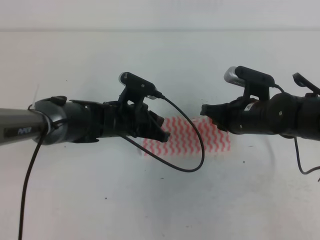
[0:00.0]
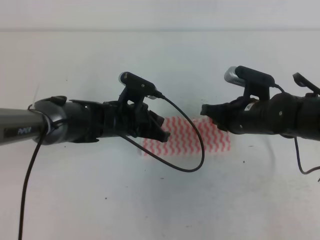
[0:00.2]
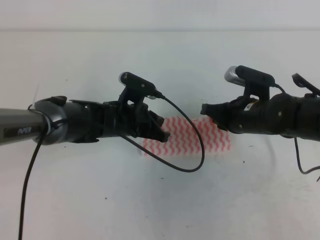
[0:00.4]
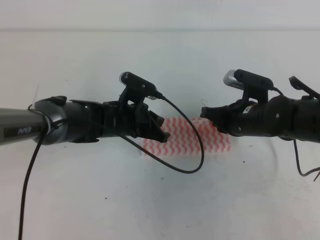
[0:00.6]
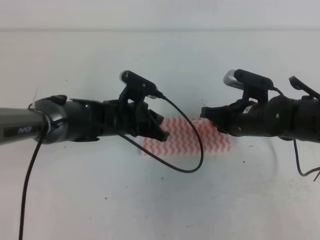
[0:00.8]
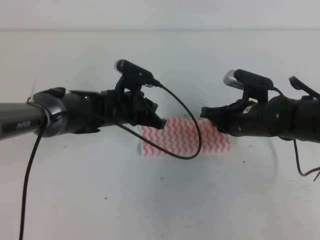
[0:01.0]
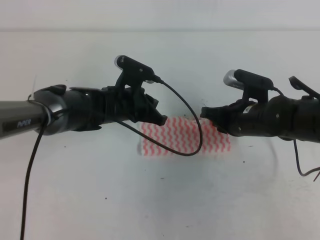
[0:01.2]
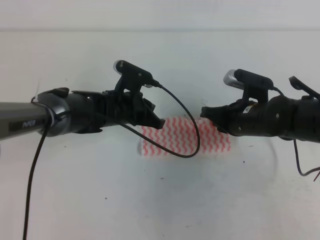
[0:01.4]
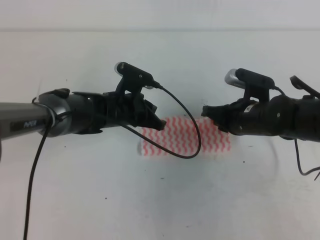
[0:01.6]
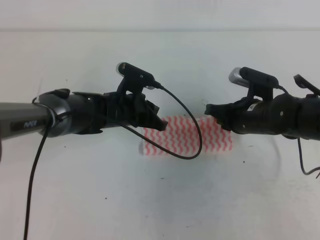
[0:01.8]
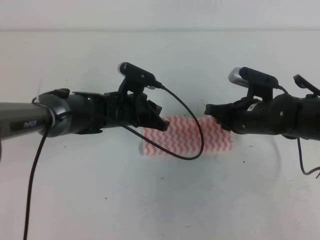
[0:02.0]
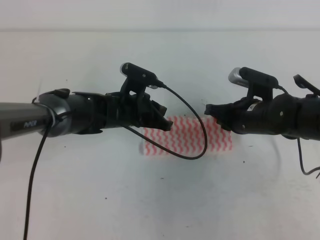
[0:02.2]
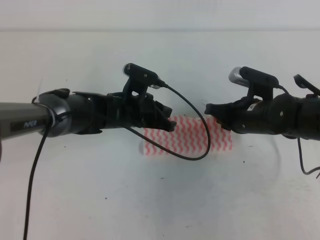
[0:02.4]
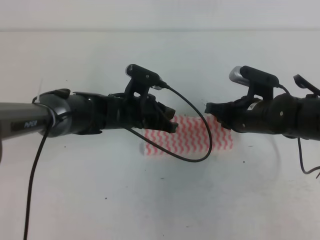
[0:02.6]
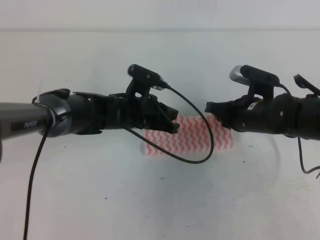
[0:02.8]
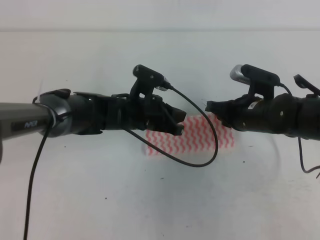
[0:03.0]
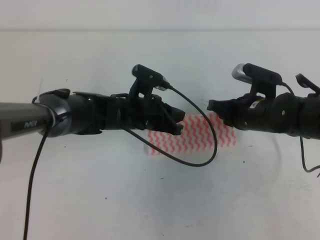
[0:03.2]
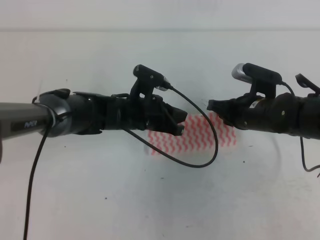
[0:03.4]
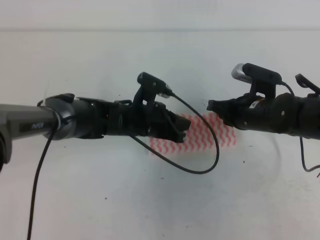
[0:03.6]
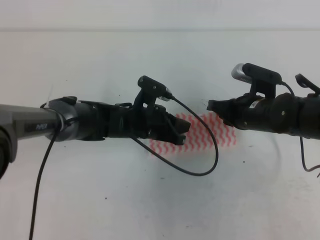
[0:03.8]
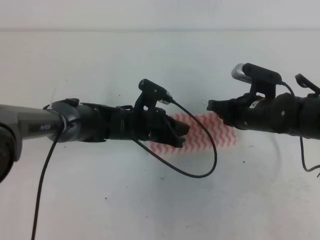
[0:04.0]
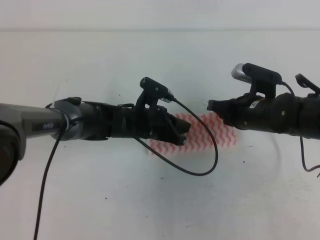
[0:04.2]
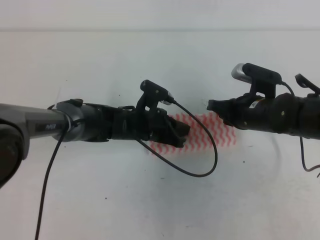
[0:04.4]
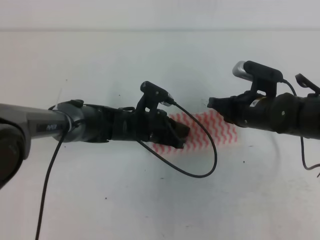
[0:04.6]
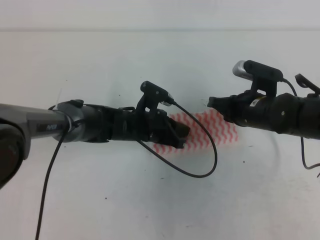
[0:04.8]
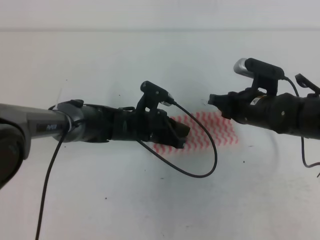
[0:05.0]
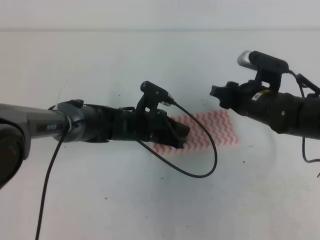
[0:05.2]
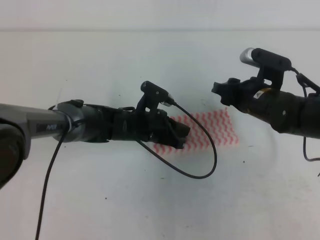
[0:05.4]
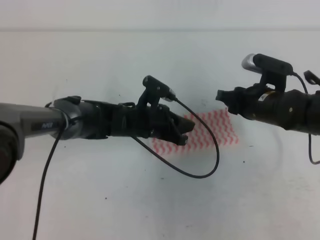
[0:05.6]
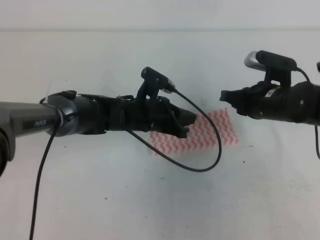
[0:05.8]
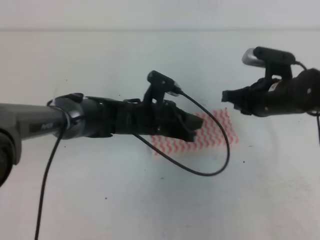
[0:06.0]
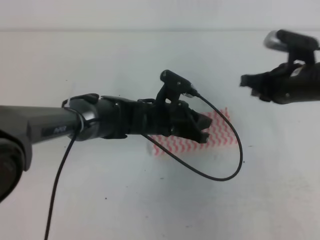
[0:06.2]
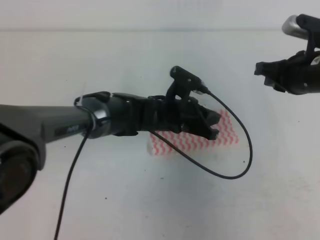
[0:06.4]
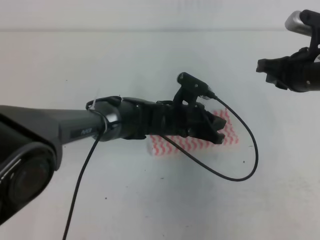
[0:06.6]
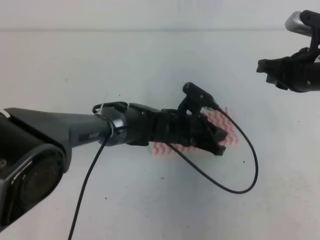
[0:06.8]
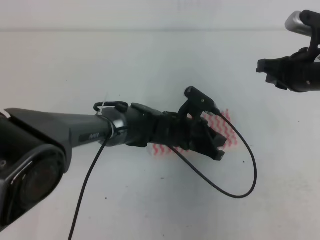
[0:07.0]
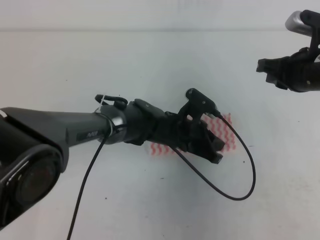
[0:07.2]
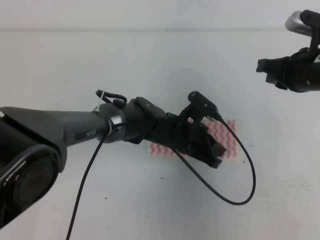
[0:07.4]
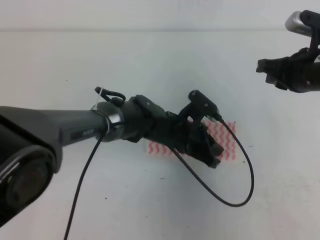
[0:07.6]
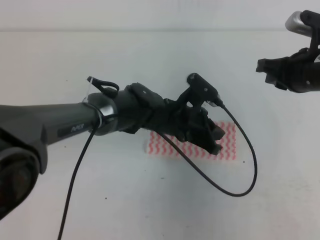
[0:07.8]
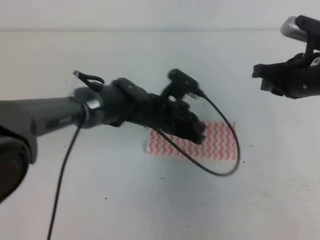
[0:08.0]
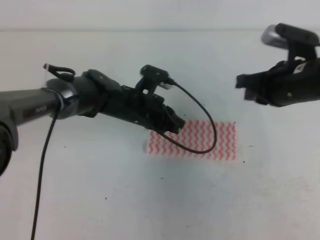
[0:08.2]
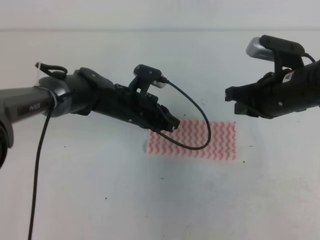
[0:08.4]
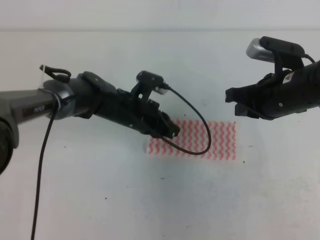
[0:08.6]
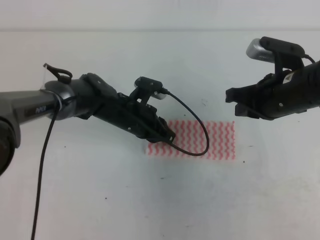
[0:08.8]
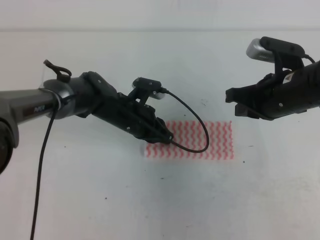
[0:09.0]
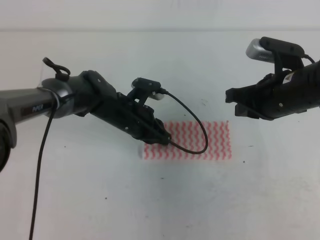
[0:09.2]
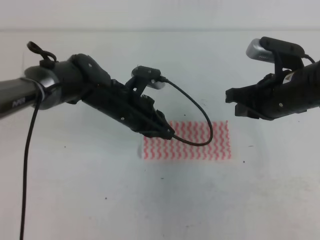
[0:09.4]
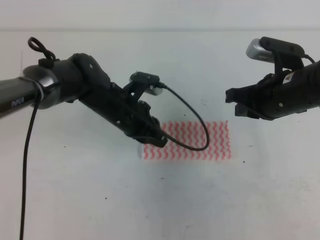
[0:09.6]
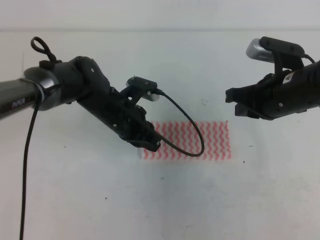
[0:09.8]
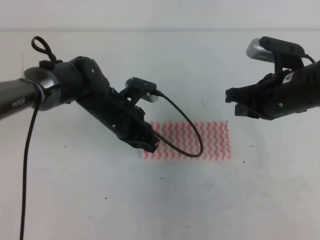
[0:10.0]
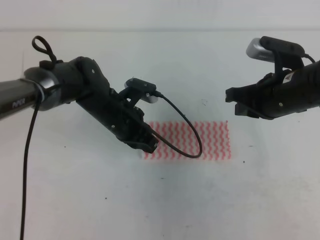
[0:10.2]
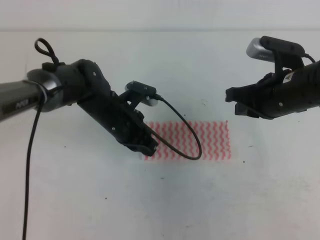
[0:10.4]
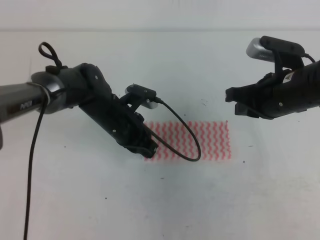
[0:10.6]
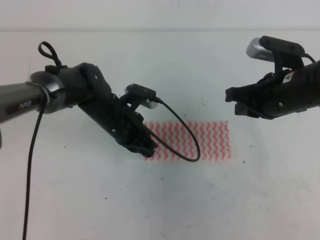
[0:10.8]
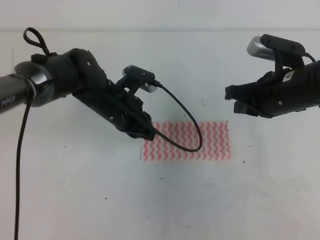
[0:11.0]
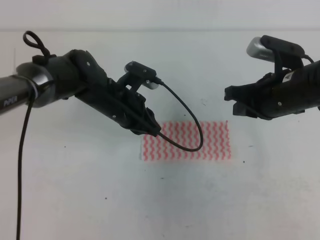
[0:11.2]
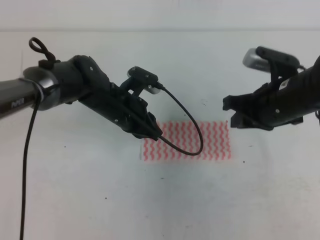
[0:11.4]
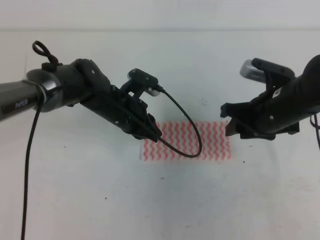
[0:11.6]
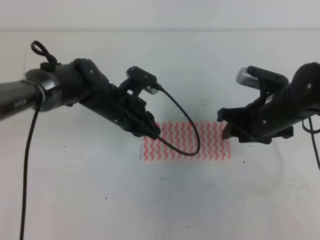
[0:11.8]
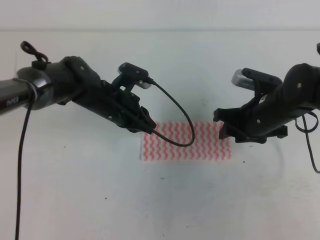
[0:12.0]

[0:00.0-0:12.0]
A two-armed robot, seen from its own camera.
0:00.0 to 0:04.4: The grippers make only small movements.
0:04.4 to 0:06.0: The right gripper opens, then closes once more.
0:06.0 to 0:07.6: The right gripper heads upward, covering approximately 5 cm. The left gripper shifts about 5 cm to the right.
0:07.6 to 0:09.0: The left gripper heads to the left, covering approximately 10 cm, while the right gripper ends up about 5 cm from where it was.
0:09.0 to 0:10.4: The grippers move only a little.
0:10.4 to 0:12.0: The right gripper moves downward, some 5 cm, and opens its fingers.

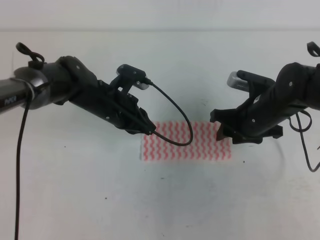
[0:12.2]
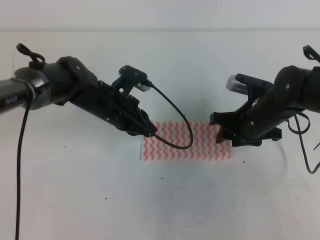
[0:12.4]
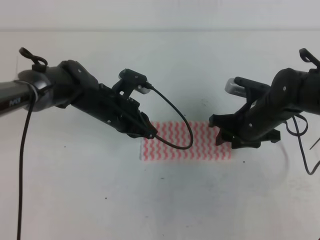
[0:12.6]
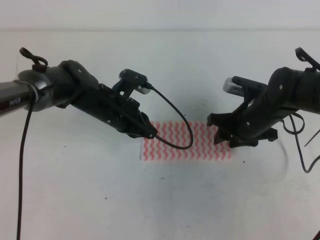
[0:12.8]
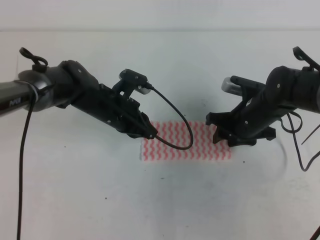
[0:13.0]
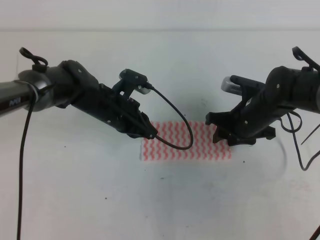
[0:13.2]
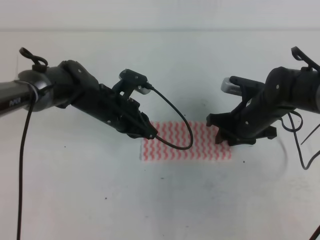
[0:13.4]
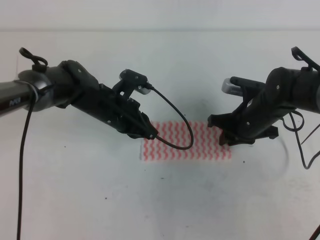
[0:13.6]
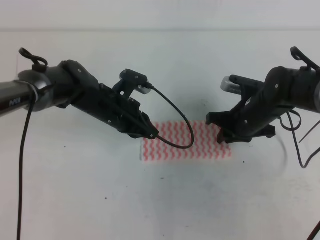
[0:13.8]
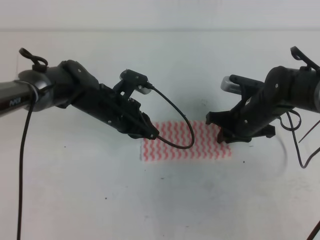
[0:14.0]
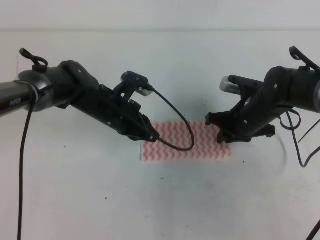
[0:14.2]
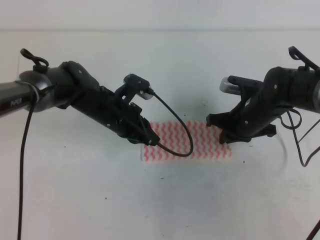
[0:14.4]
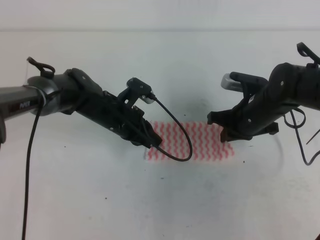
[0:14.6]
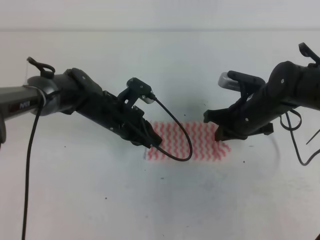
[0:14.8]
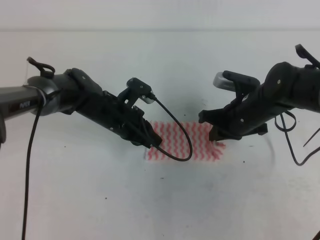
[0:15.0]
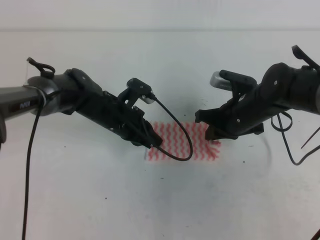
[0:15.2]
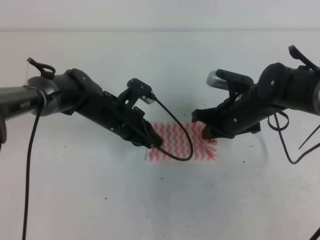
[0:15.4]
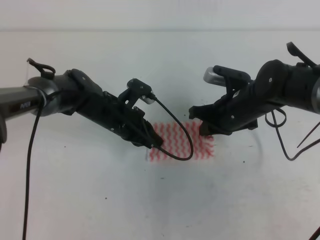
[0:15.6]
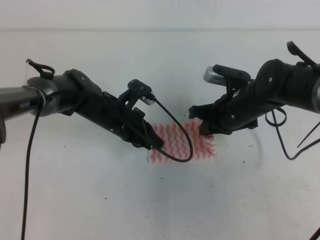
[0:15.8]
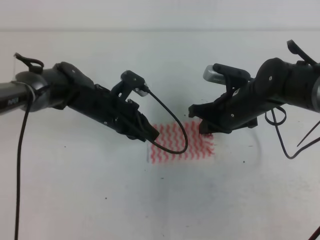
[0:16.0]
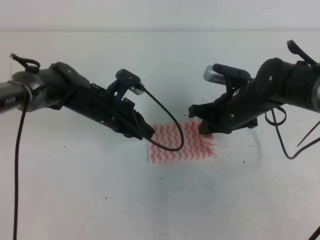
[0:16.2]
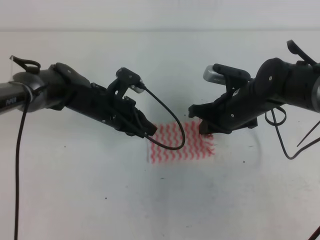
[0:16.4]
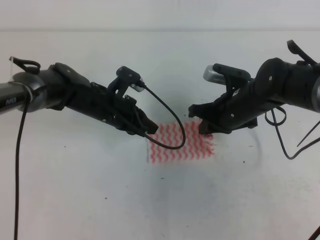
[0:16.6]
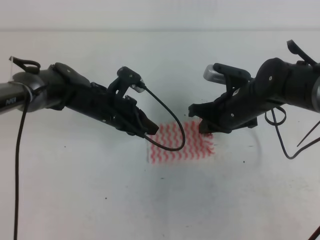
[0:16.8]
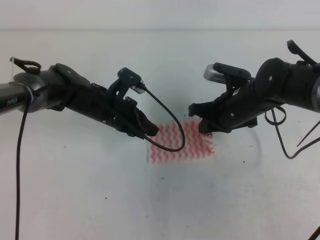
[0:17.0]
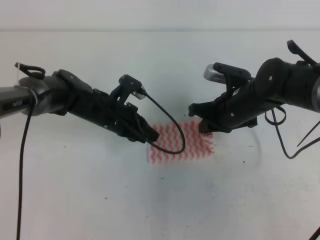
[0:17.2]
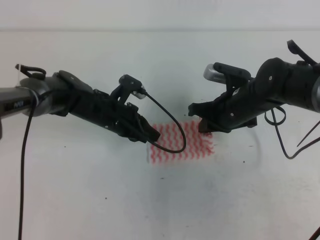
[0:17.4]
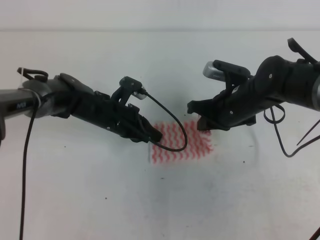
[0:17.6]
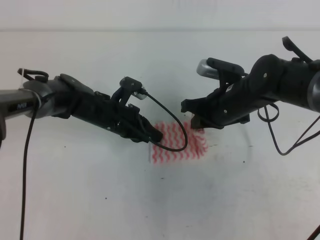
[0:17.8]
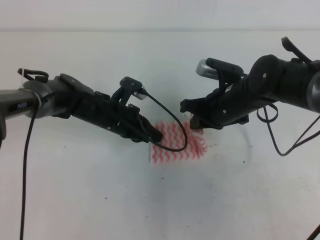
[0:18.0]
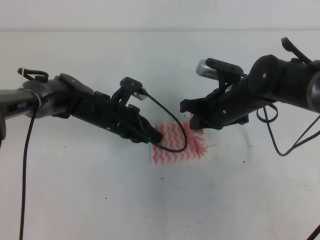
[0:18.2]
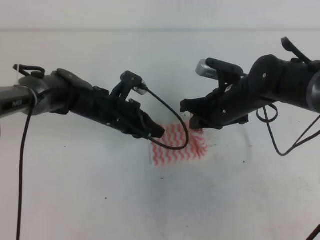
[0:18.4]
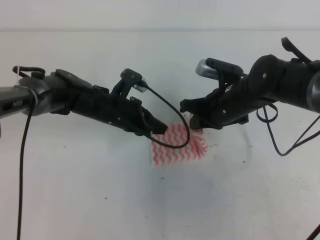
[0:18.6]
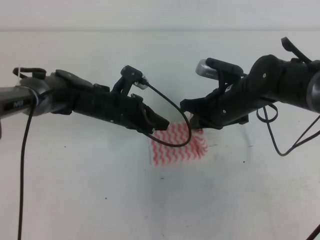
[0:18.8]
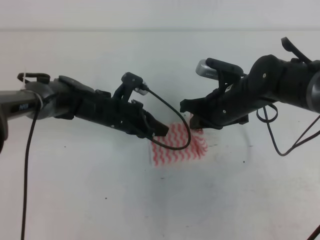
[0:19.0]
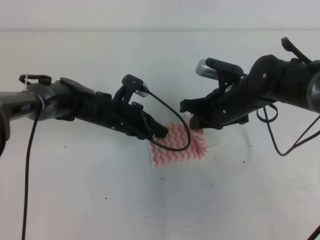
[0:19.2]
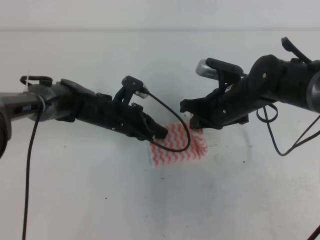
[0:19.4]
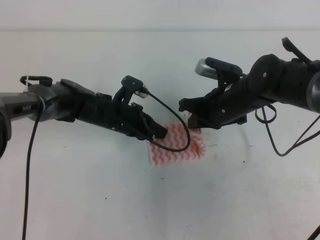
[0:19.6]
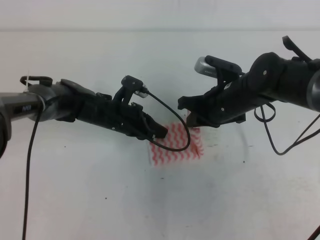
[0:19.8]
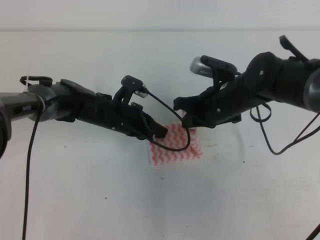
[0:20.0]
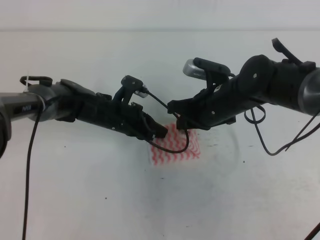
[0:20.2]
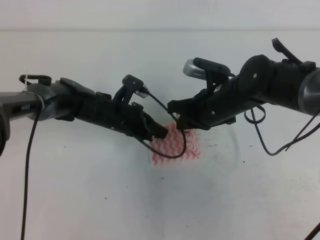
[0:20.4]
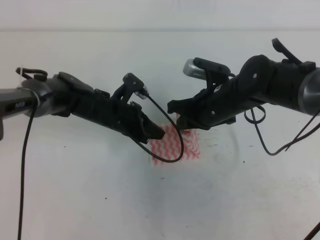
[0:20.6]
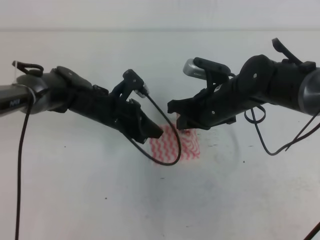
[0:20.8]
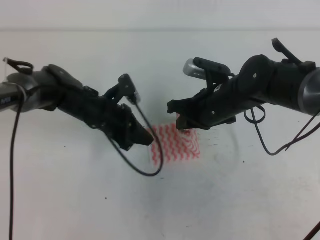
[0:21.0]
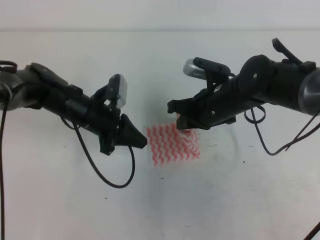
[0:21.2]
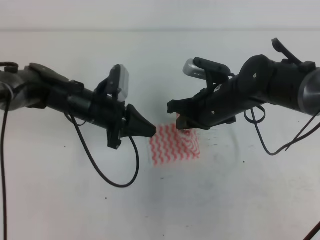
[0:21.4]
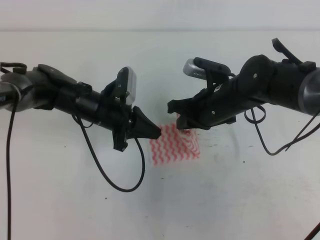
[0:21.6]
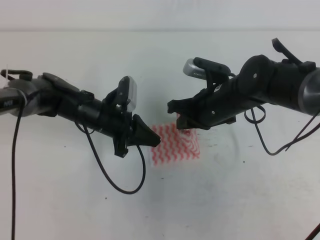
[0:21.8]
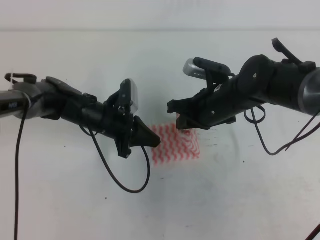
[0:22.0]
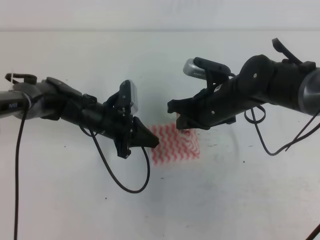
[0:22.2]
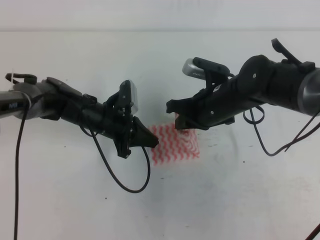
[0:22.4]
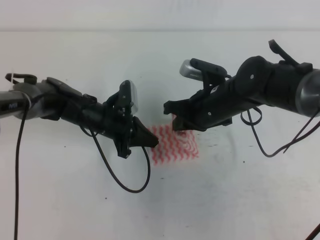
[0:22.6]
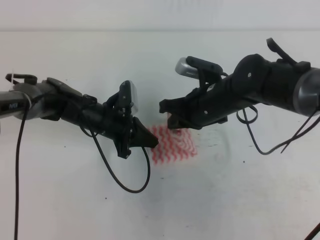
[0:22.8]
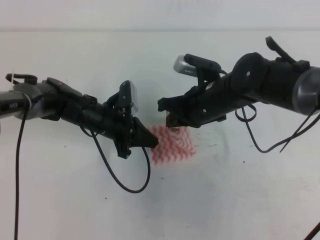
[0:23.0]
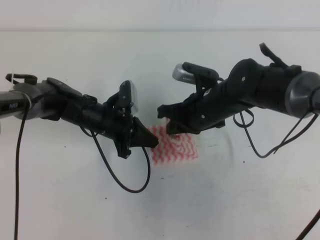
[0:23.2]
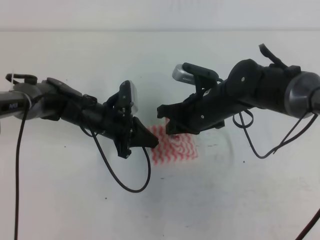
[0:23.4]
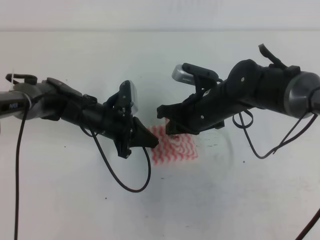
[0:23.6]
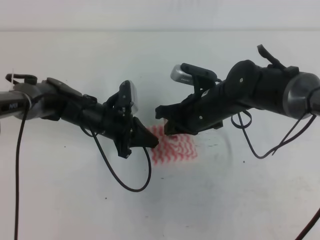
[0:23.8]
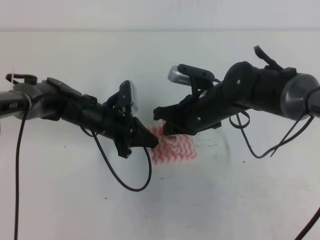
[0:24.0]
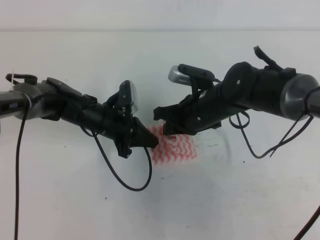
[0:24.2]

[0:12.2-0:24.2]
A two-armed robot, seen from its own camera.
0:12.2 to 0:13.8: The right gripper closes up.
0:13.8 to 0:15.2: The right gripper closes up.
0:15.2 to 0:19.8: The grippers make only small movements.
0:19.8 to 0:21.2: The left gripper shifts by about 5 cm.
0:21.2 to 0:24.2: There are only small adjustments of the grippers.
